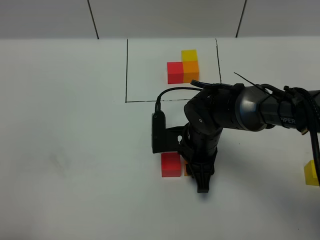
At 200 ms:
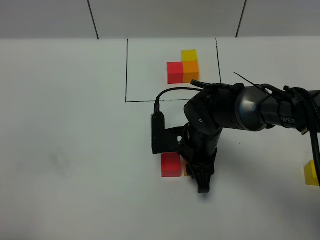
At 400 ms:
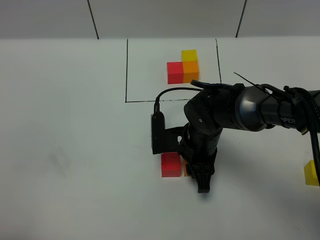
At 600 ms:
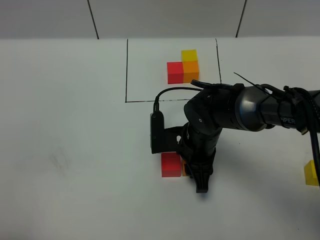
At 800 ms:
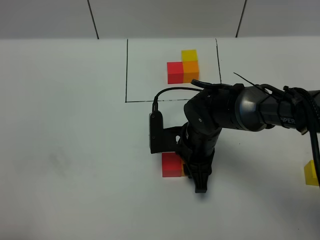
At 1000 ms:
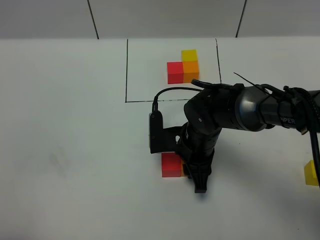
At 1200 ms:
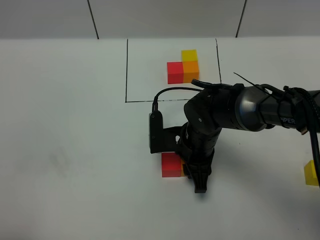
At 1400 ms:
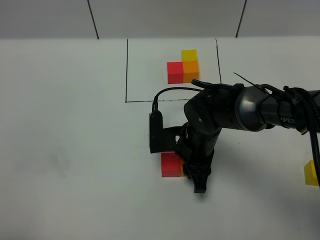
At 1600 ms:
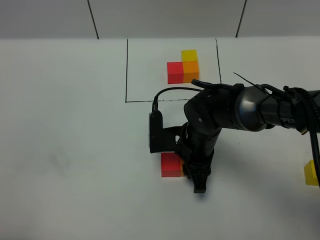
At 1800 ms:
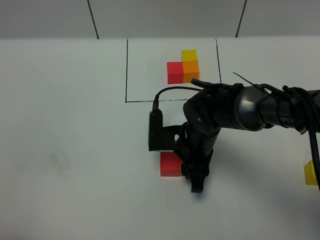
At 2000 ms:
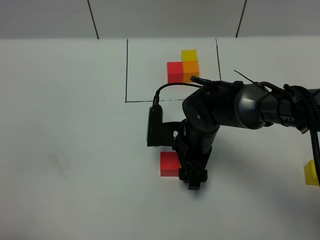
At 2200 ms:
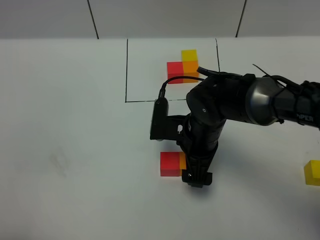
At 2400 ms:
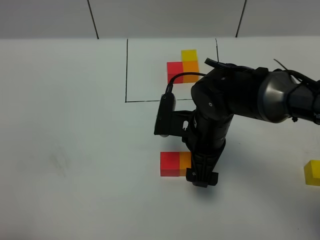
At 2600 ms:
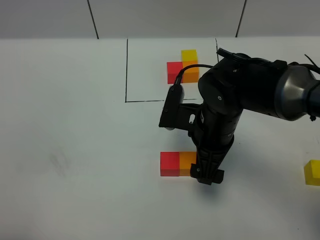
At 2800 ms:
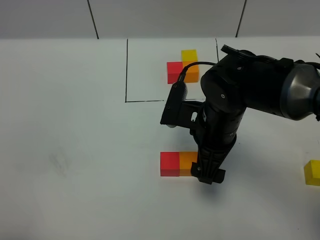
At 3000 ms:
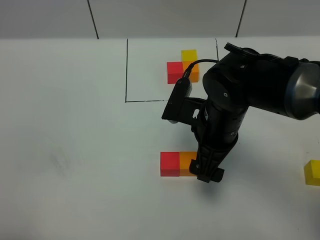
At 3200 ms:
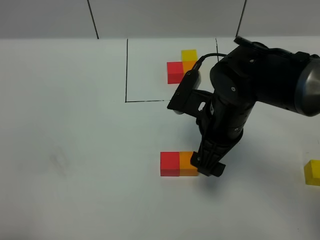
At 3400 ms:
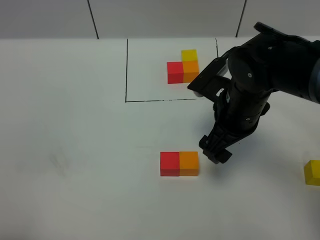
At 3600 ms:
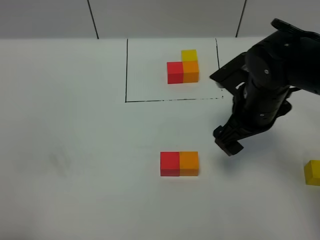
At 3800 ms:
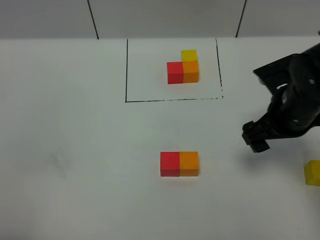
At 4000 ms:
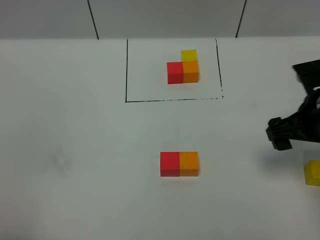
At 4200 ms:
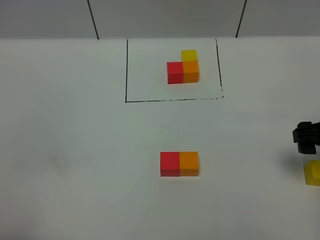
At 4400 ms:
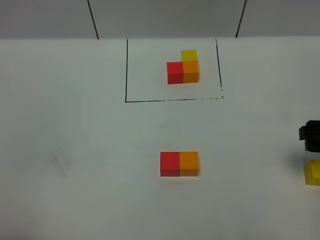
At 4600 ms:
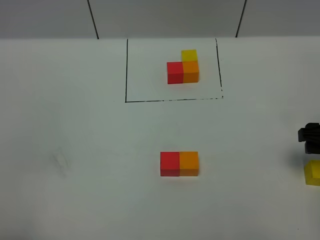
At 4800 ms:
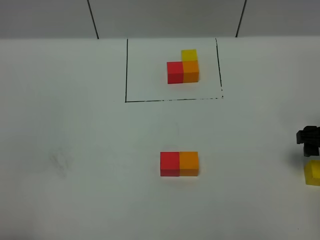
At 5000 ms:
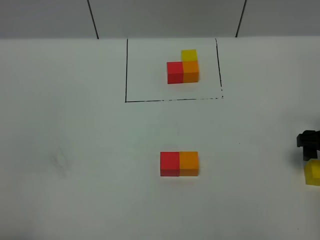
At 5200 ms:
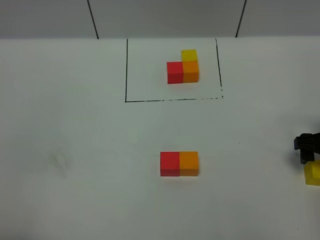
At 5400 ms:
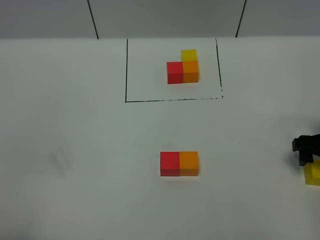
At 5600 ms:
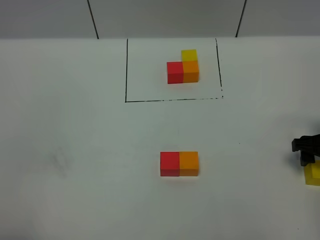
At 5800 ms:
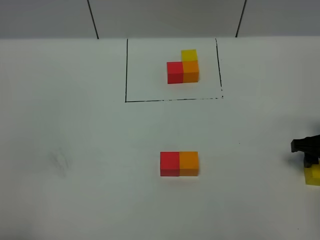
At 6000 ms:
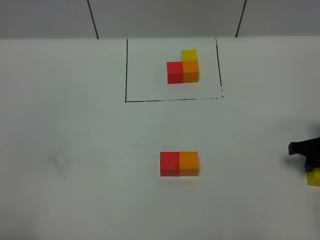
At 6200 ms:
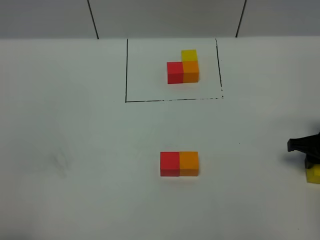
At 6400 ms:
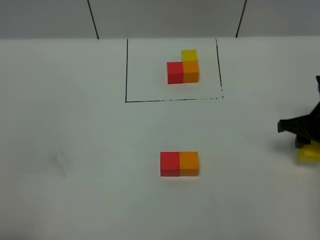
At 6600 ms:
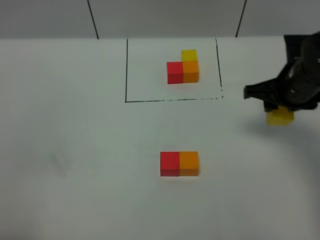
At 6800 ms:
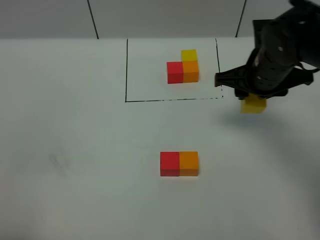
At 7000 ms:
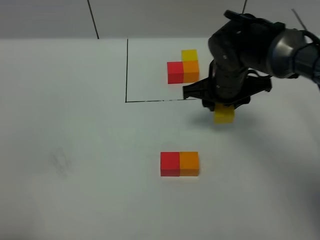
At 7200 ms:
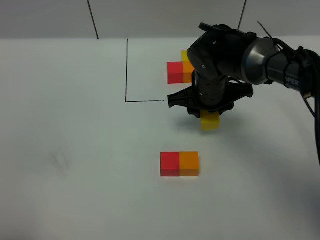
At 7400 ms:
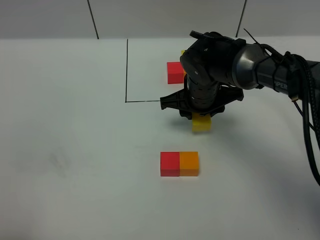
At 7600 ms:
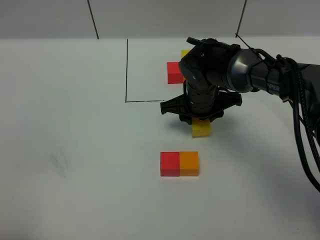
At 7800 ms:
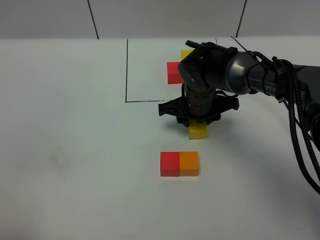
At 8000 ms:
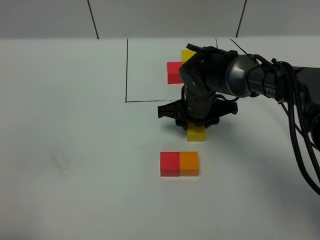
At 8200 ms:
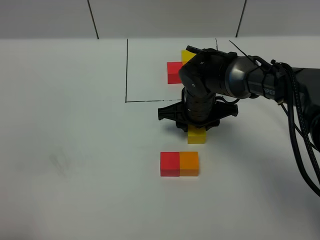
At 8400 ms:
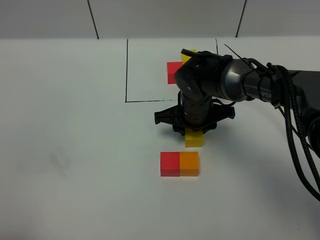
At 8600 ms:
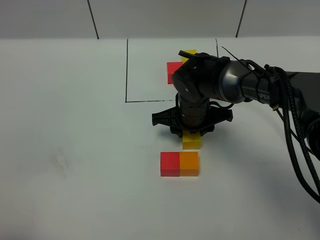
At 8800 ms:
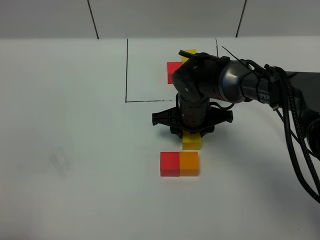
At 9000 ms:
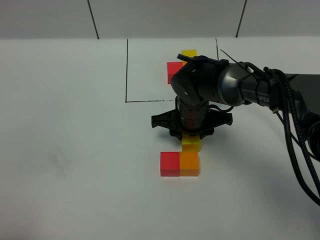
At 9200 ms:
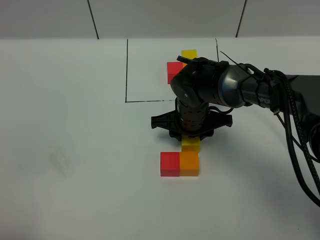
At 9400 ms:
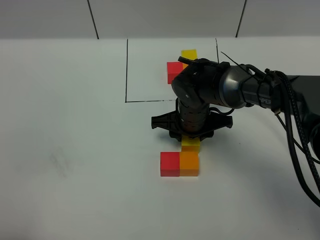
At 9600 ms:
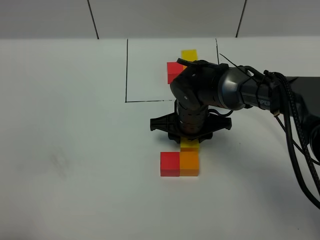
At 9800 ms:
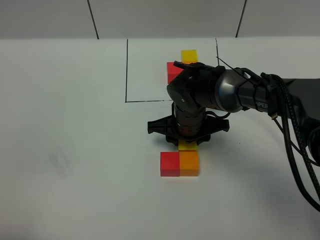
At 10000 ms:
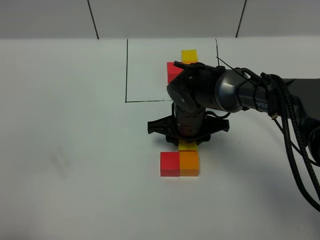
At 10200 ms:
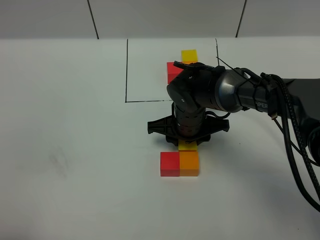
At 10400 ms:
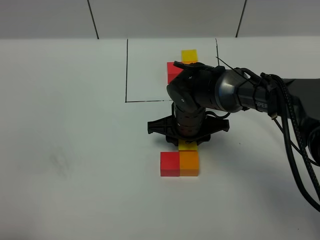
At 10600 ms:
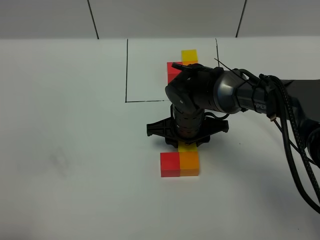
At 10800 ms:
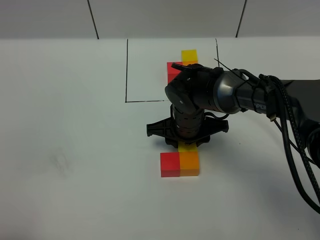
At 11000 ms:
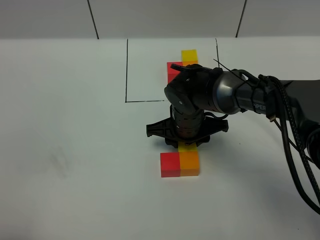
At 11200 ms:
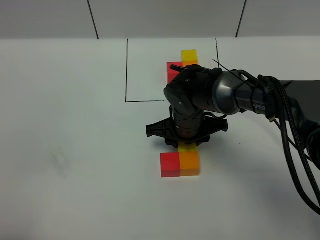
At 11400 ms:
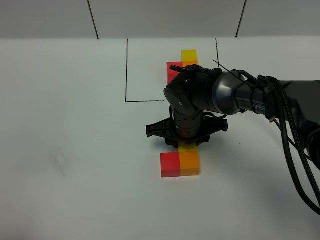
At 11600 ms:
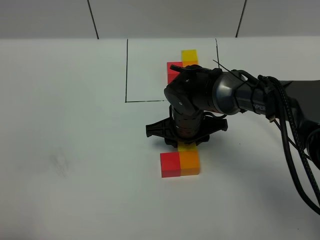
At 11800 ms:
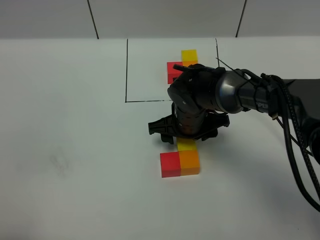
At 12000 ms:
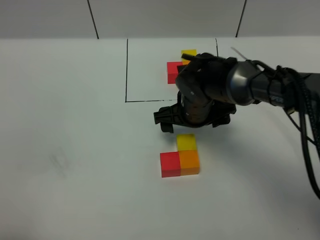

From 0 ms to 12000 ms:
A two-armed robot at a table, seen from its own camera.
Task of the whole recording: According to the building block template in front, assemble the scattered blocks together.
Step, from 2000 ms to 11600 ms: Put the yellow build block on the front of the orange build block.
From 0 ms to 1600 ms: Both grippers stay put.
From 1600 ms to 3000 ms: The right gripper shifts roughly 10 cm upward, and opens up.
From 3000 ms to 4400 ms: The right gripper travels to the right by approximately 20 cm.
From 4400 ms to 6000 ms: The right gripper shifts about 10 cm downward, and closes its fingers.
From 6000 ms to 7600 ms: The right gripper moves to the left, about 25 cm.
From 7600 ms to 10400 ms: There are only small adjustments of the grippers.
From 10400 ms to 12000 ms: The right gripper opens up.

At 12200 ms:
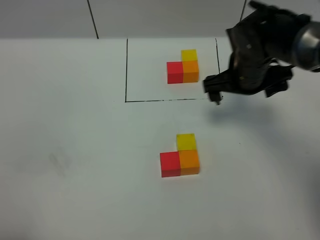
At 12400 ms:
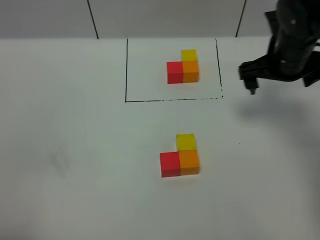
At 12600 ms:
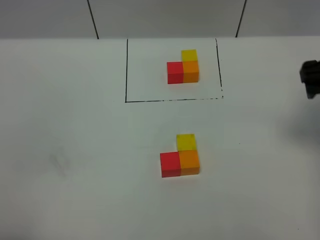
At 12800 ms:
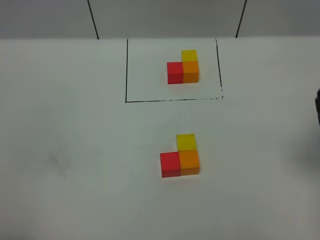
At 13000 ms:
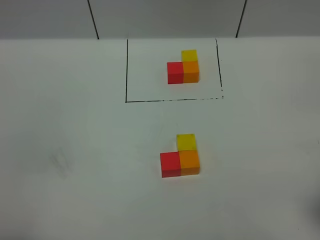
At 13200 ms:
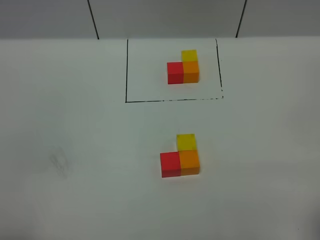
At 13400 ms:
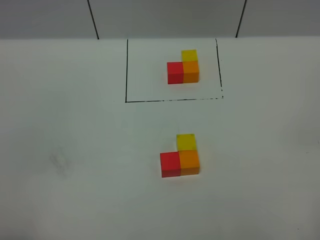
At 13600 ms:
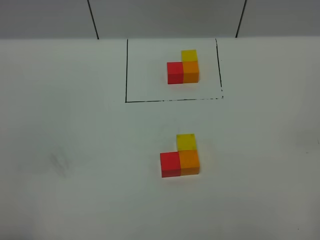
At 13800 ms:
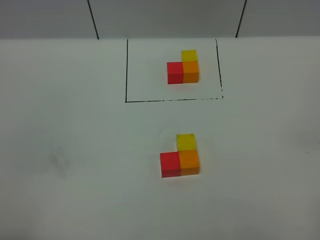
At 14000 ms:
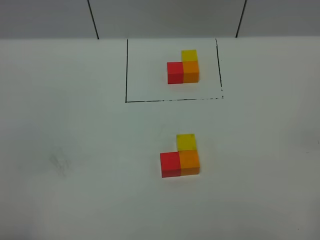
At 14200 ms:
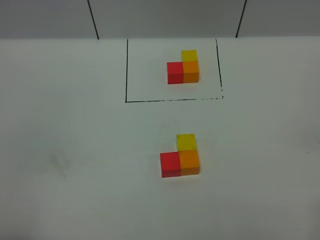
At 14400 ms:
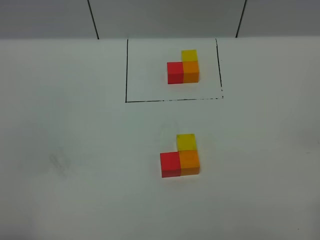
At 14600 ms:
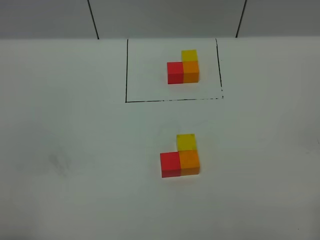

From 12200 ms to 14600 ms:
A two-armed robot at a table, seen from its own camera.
Task of the whole recording: According to the building block template in front, assemble the scattered blocks together.
From 12200 ms to 13400 ms: The right gripper heads backward and to the right, covering approximately 40 cm.
